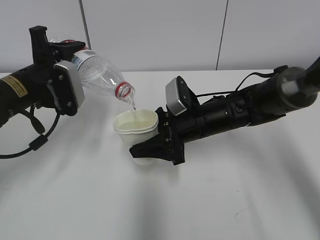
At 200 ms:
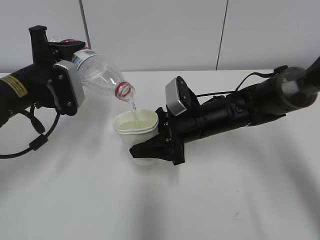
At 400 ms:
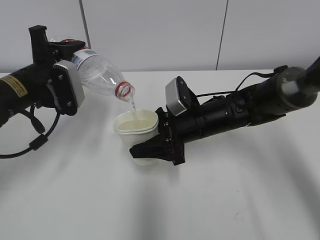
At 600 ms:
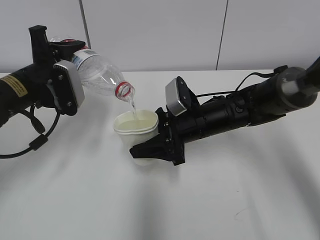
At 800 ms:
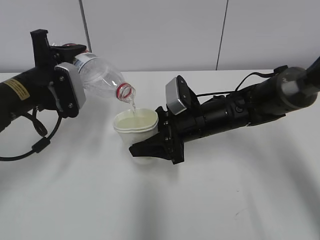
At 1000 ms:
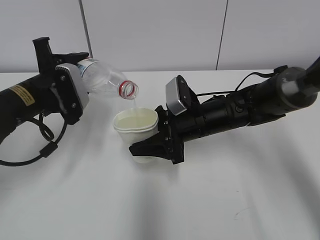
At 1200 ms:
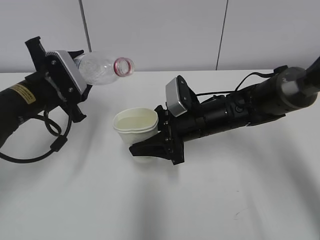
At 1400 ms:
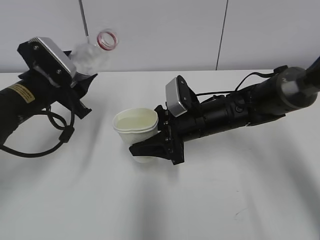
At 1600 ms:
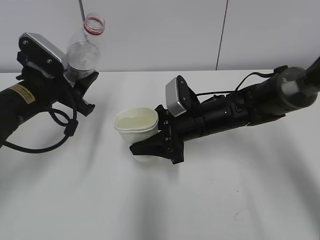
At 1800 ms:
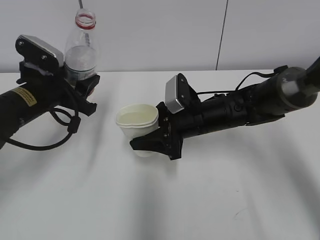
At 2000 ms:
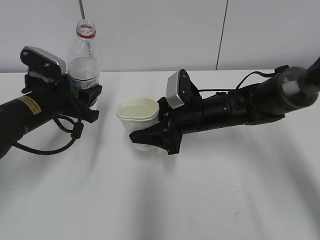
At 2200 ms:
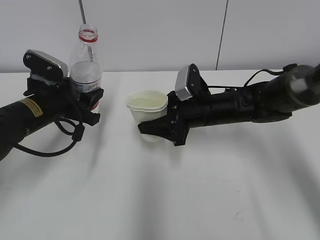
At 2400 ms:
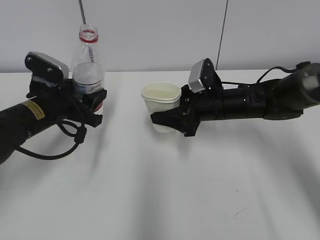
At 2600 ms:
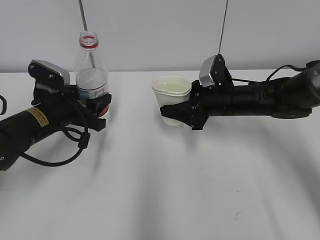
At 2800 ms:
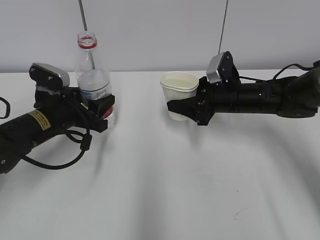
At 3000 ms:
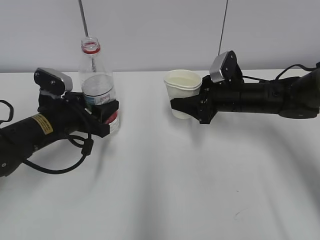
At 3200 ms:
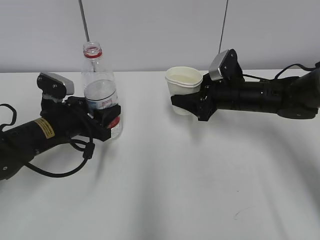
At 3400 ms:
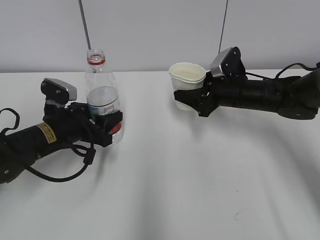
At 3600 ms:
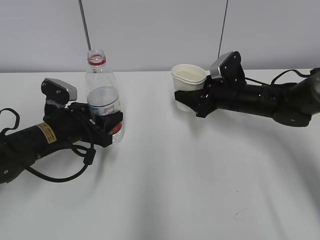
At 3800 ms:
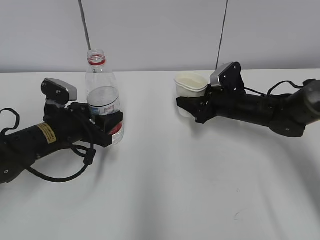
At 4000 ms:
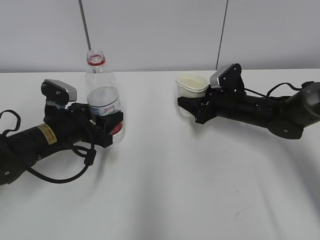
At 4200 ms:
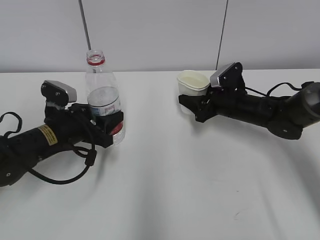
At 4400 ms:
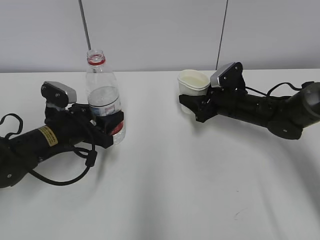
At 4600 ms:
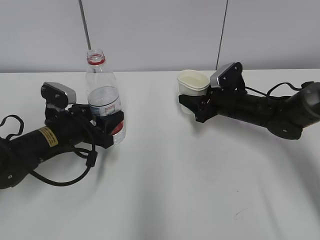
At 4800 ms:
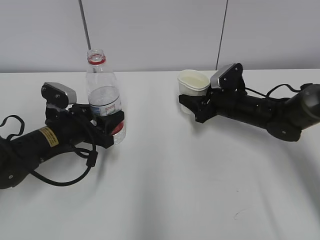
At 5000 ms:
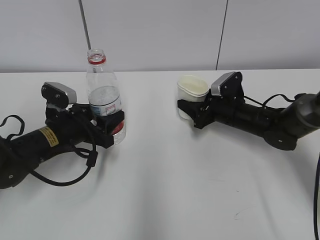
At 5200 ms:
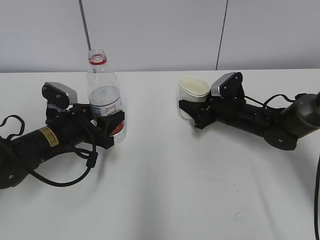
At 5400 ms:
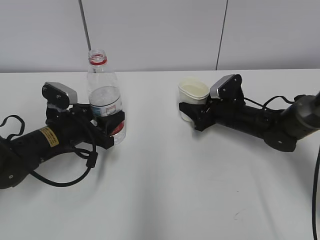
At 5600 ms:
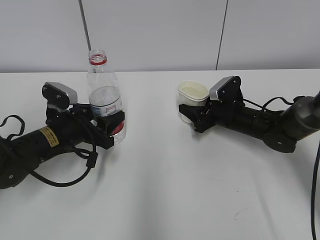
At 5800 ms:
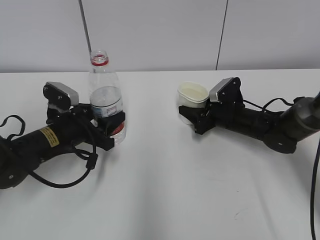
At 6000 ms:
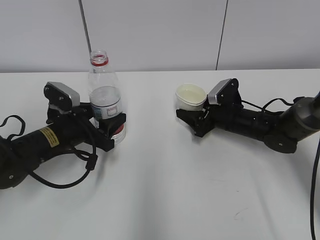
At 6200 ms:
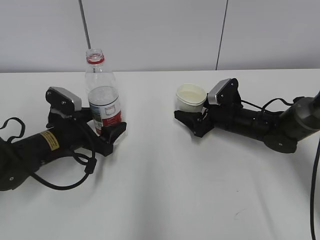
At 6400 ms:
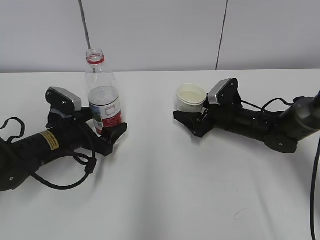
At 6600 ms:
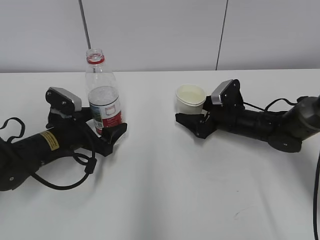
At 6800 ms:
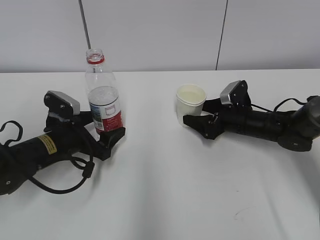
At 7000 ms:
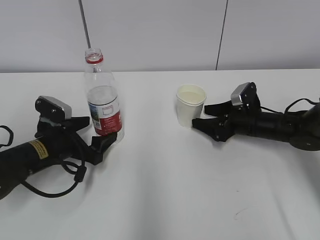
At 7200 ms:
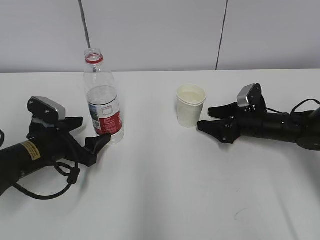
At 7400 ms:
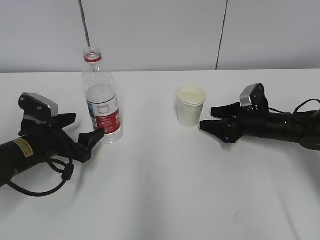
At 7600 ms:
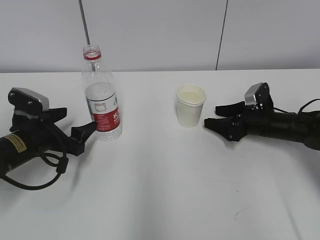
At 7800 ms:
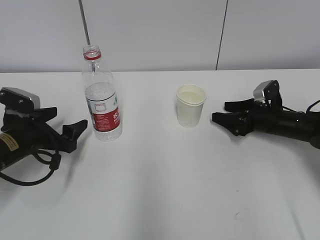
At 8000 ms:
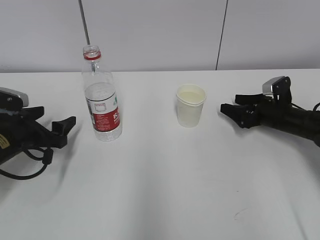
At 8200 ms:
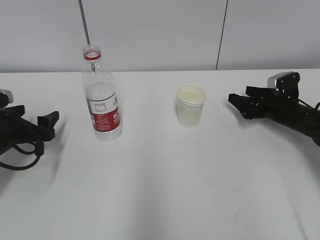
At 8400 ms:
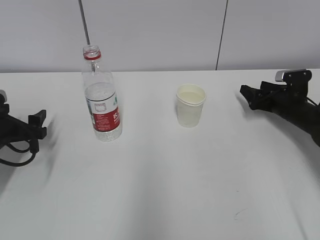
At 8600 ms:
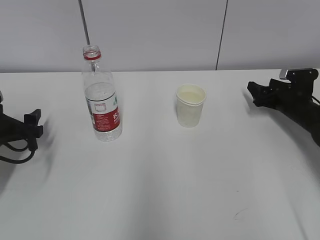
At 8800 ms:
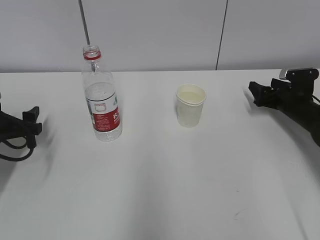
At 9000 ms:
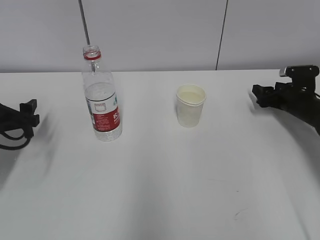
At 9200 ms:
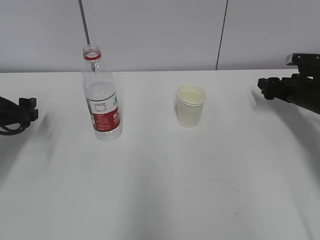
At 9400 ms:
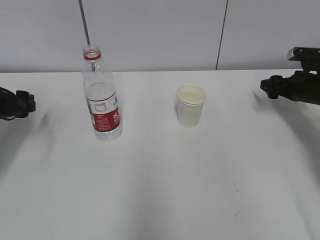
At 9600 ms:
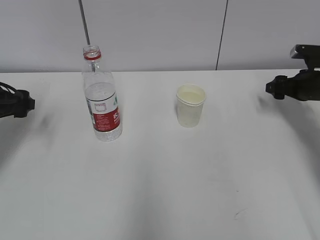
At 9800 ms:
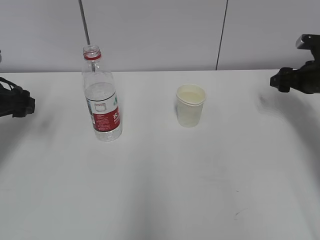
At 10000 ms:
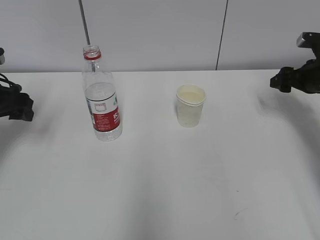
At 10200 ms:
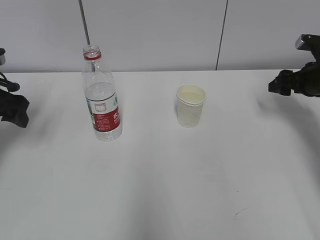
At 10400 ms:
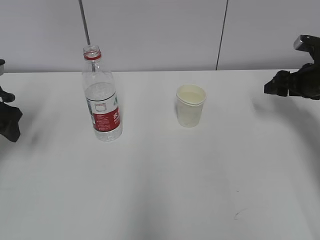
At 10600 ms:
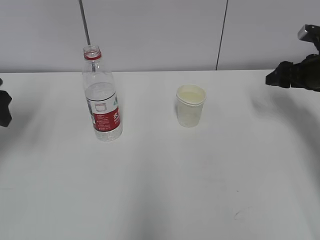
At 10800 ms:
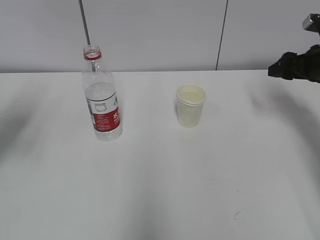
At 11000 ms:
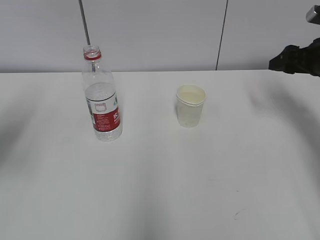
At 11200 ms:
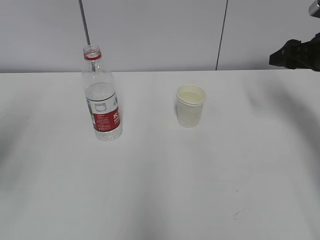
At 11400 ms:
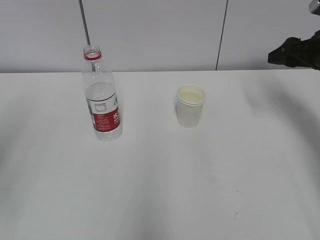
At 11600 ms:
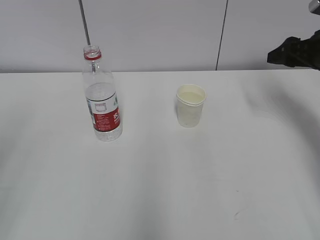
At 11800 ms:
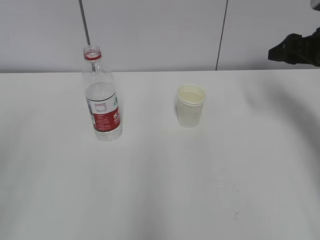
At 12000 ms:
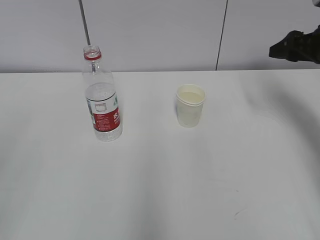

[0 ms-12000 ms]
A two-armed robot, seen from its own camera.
Step, 1400 ms to 1600 ms: Place the water bottle with the left hand.
1600 ms to 3000 ms: The left gripper heads downward, covering roughly 5 cm; the right gripper goes approximately 10 cm to the right.
3000 ms to 4400 ms: The grippers move only a little.
4400 ms to 6000 ms: The grippers make only small movements.
6000 ms to 7600 ms: The left gripper heads to the left, covering about 5 cm, and opens; the right gripper heads to the right, covering some 10 cm.
7600 ms to 9000 ms: The right gripper goes roughly 10 cm to the right. Meanwhile the left gripper heads to the left, covering about 10 cm.
9000 ms to 10400 ms: Both grippers travel together upward, about 10 cm.
10400 ms to 12000 ms: The left gripper travels backward by some 30 cm, while the right gripper heads upward, covering some 10 cm.

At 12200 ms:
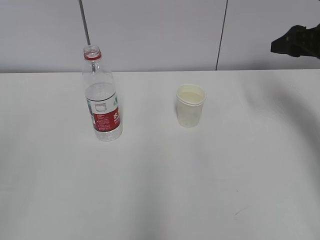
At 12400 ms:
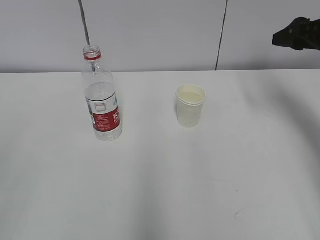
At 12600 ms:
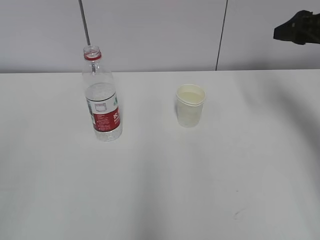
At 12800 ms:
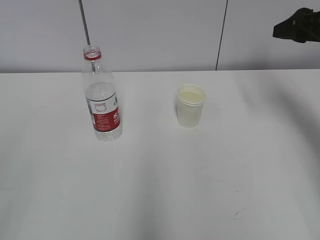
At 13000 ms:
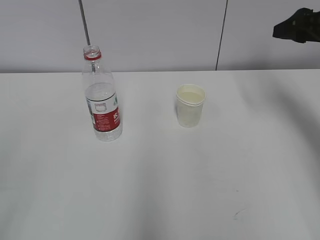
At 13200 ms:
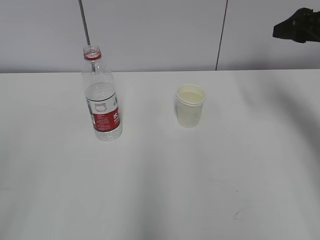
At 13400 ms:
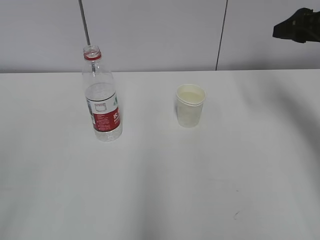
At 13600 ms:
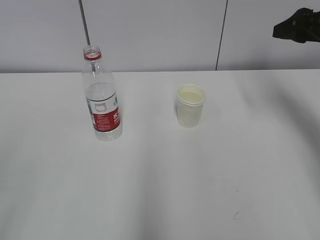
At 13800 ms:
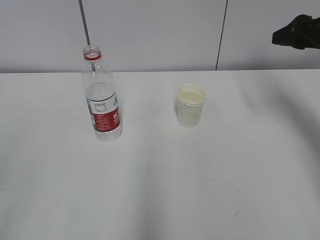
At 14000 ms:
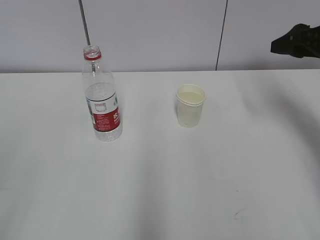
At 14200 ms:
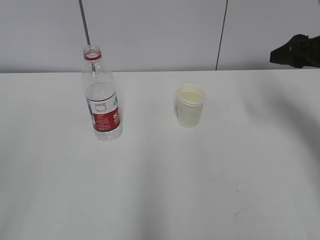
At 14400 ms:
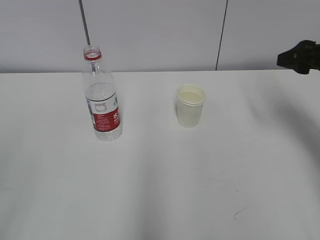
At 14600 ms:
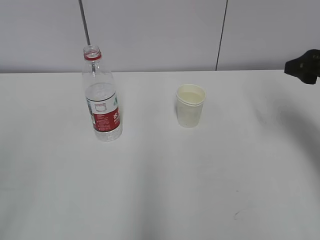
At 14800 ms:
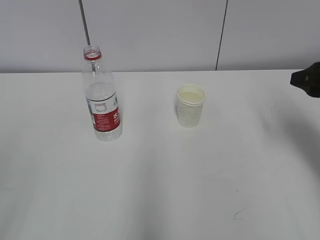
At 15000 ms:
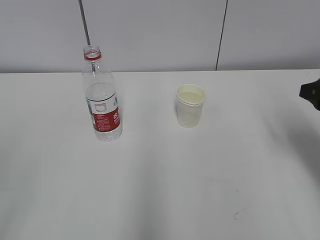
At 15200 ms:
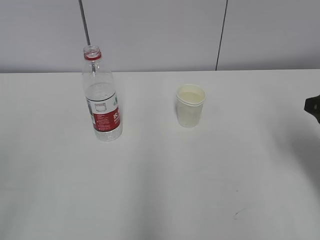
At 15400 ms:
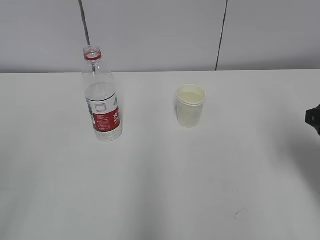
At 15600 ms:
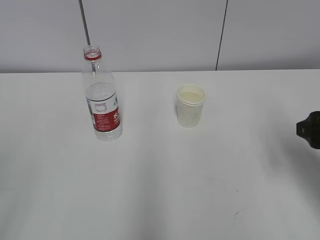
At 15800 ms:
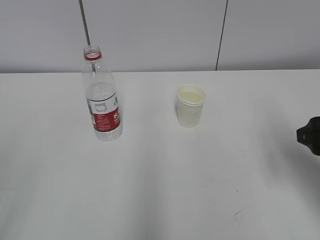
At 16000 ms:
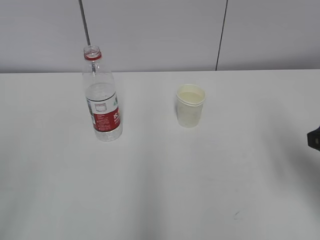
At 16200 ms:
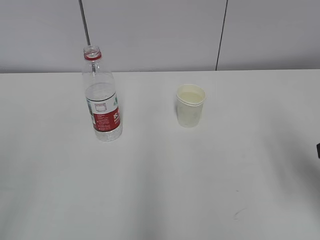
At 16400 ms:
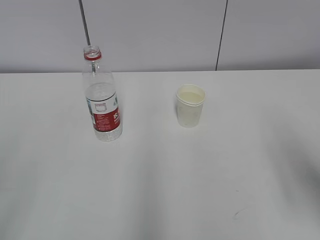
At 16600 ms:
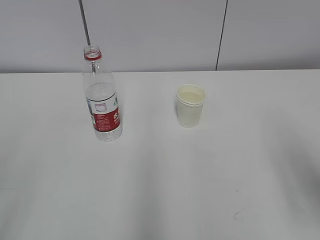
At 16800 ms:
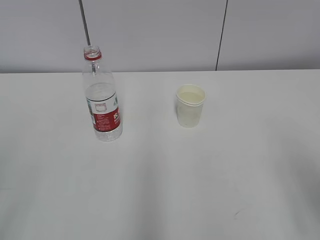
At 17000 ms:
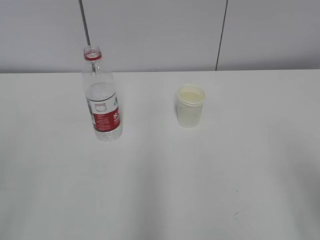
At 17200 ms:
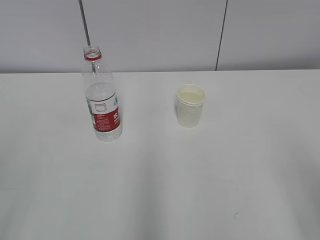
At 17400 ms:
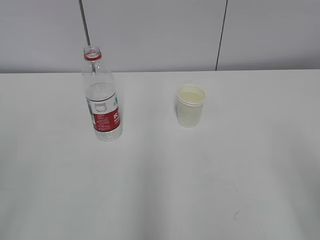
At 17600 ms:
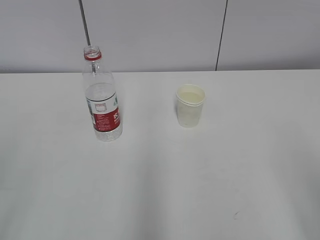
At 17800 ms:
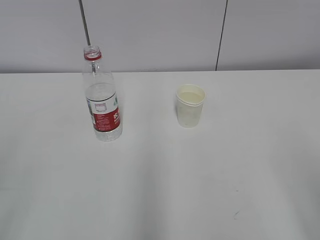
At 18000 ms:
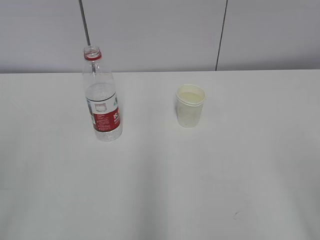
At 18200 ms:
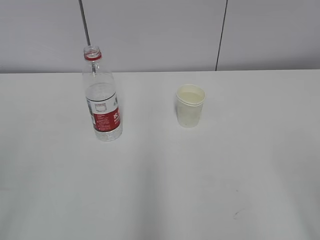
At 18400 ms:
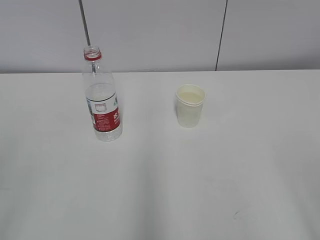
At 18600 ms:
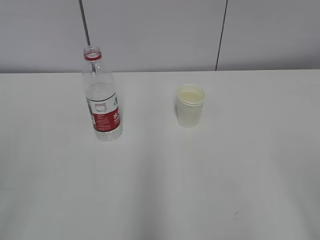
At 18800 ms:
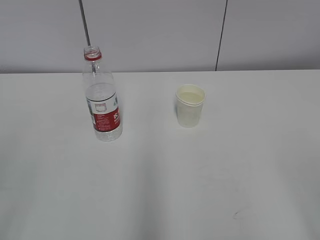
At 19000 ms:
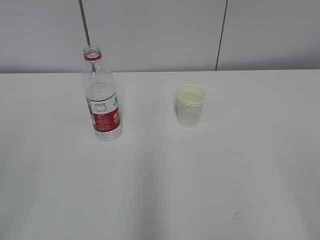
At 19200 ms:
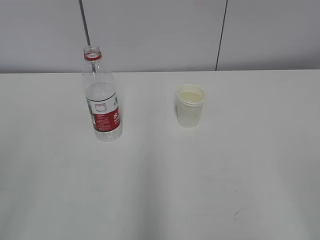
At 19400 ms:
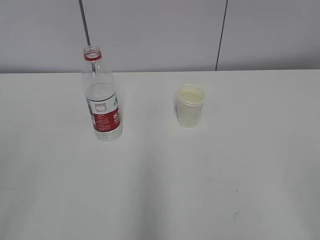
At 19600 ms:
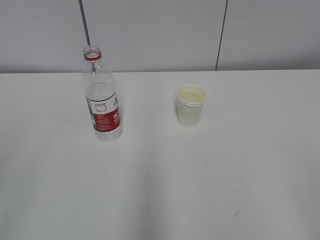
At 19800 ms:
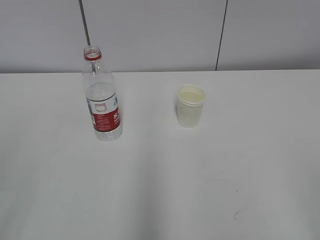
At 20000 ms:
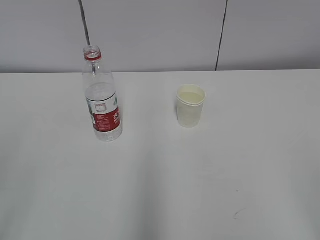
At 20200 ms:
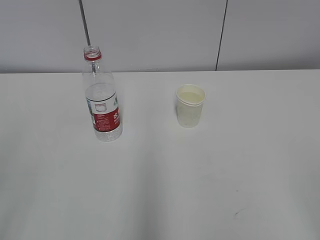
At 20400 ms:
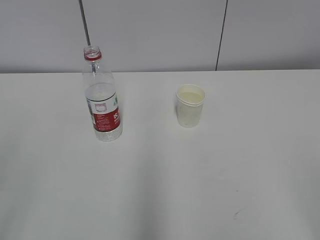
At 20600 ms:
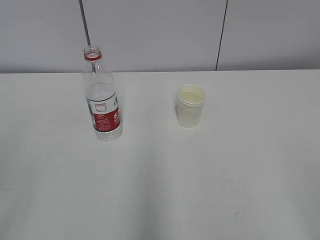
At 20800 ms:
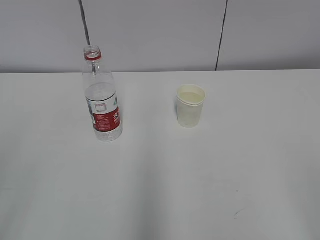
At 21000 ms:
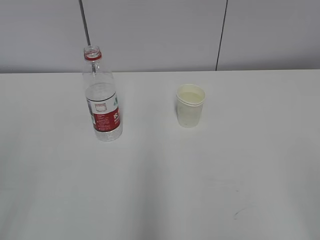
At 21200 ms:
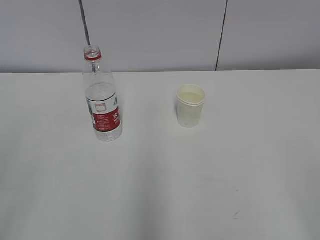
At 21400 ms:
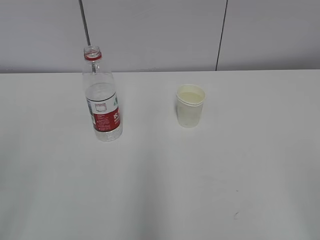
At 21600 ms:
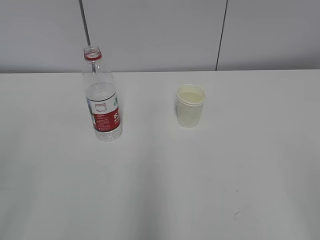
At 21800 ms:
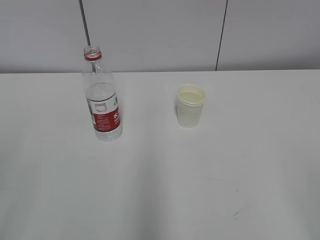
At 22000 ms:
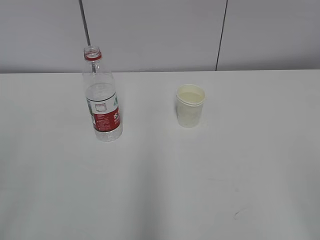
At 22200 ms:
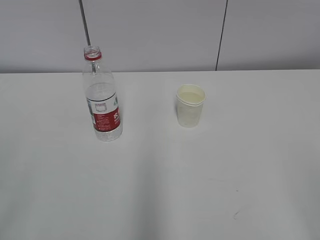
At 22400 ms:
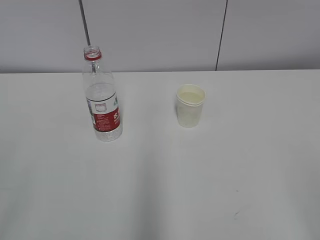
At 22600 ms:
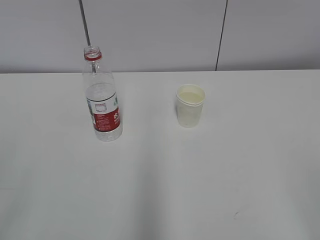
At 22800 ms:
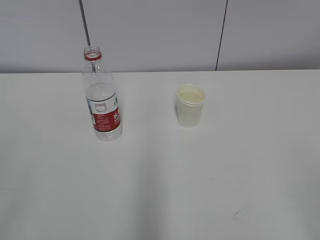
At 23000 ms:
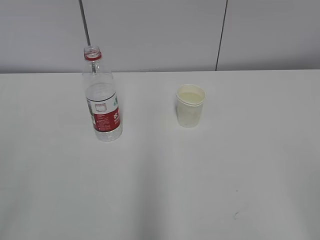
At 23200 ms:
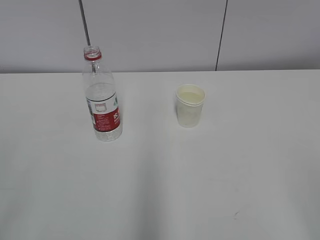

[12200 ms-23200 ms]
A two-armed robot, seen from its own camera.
12200 ms to 13800 ms: The grippers make only small movements.
13800 ms to 15400 ms: The right gripper shifts about 15 cm backward and downward.
15400 ms to 17000 ms: The right gripper shifts some 15 cm backward.
20000 ms to 21600 ms: Both grippers stay about where they are.
